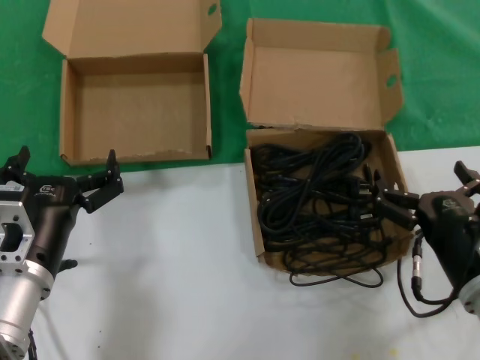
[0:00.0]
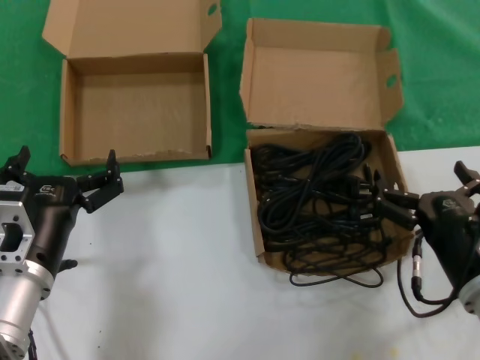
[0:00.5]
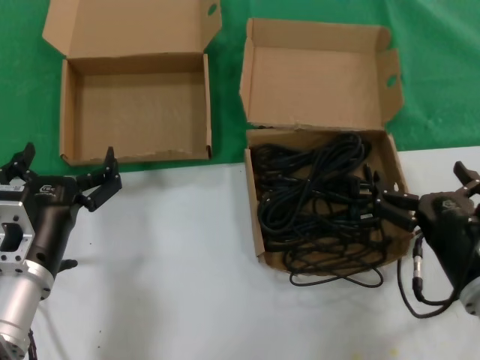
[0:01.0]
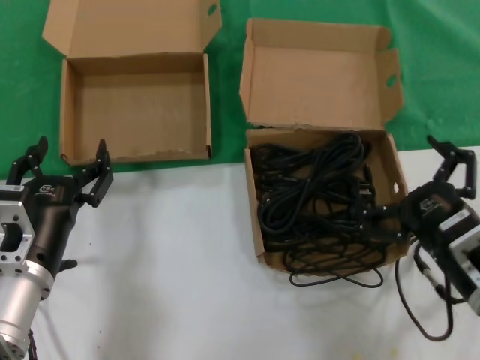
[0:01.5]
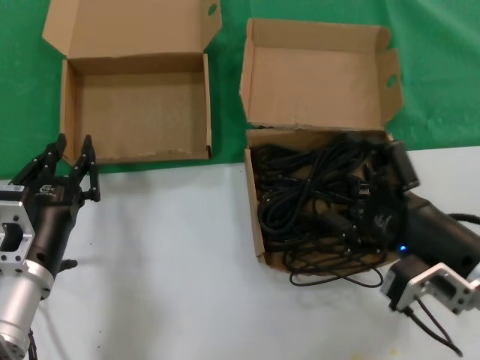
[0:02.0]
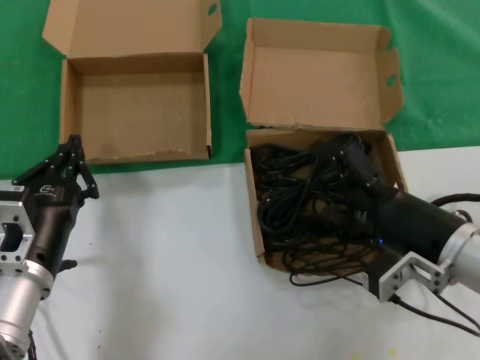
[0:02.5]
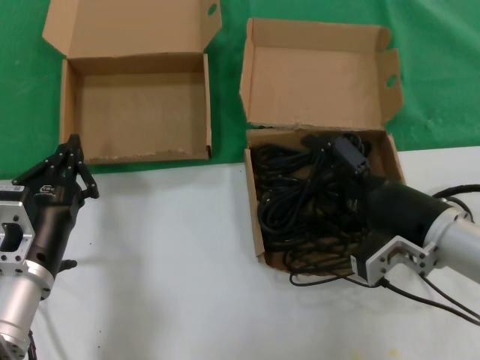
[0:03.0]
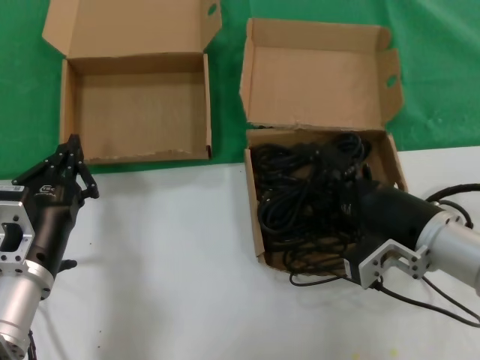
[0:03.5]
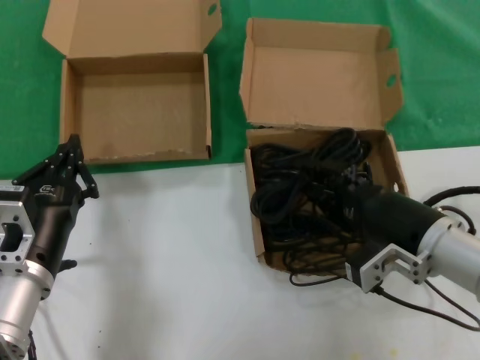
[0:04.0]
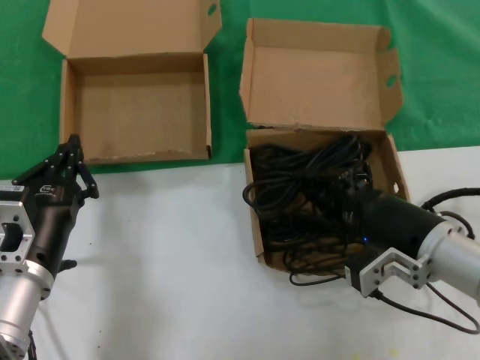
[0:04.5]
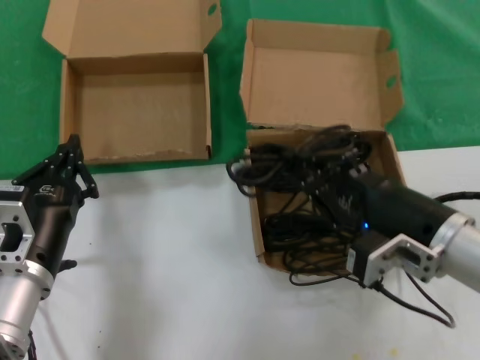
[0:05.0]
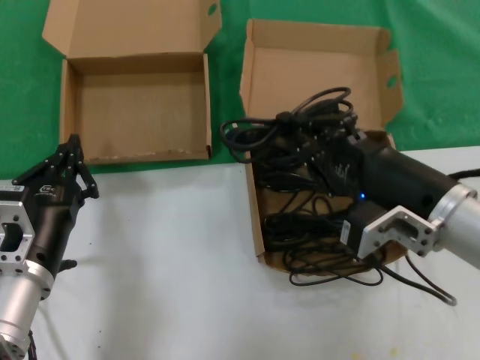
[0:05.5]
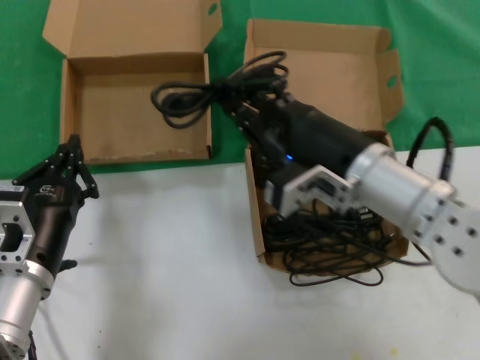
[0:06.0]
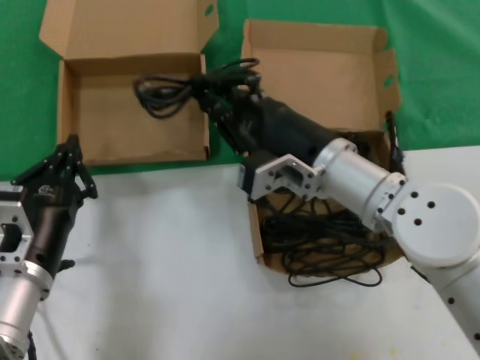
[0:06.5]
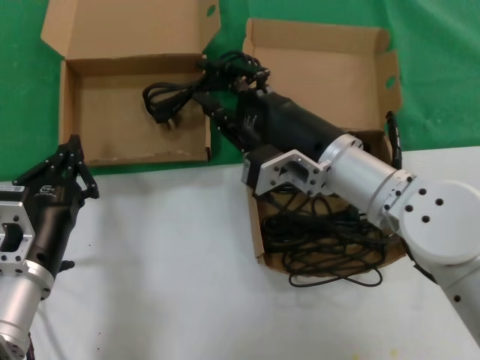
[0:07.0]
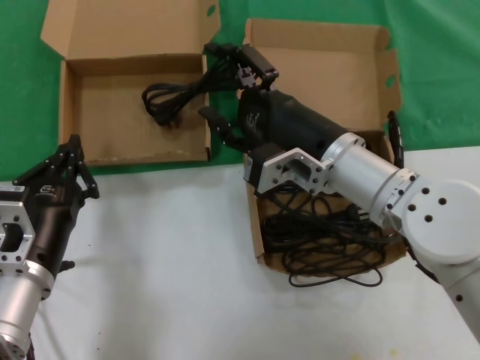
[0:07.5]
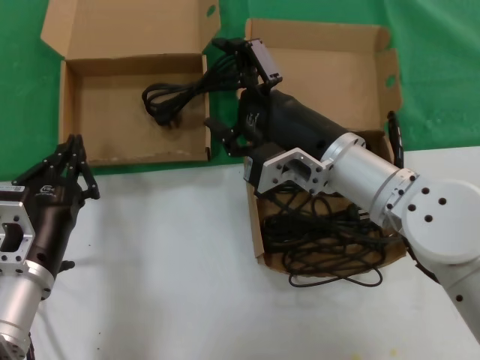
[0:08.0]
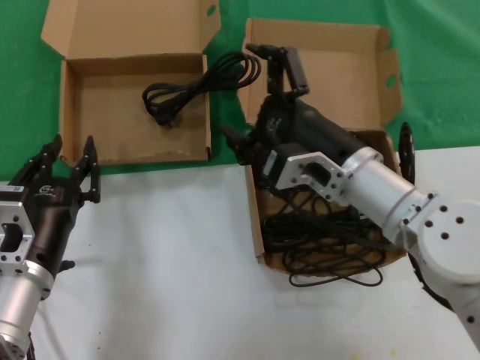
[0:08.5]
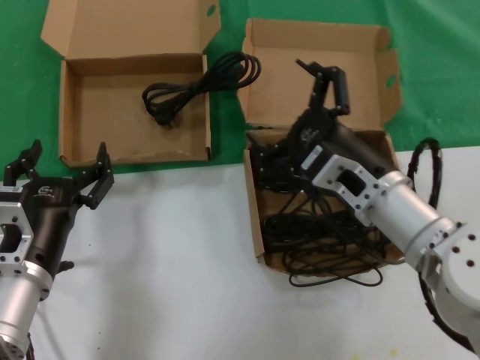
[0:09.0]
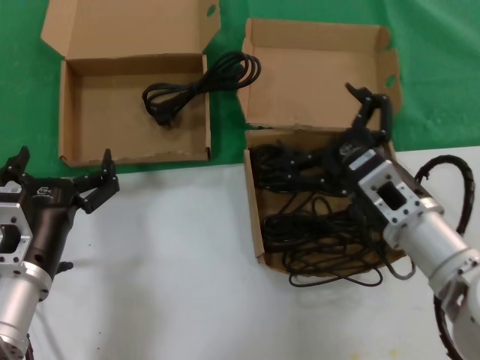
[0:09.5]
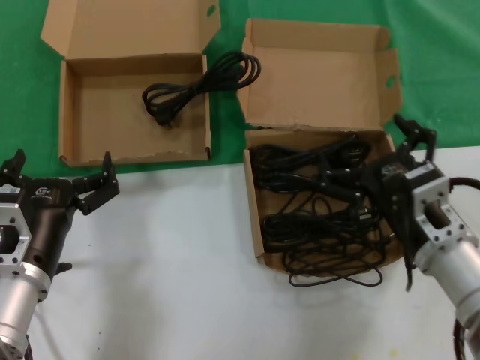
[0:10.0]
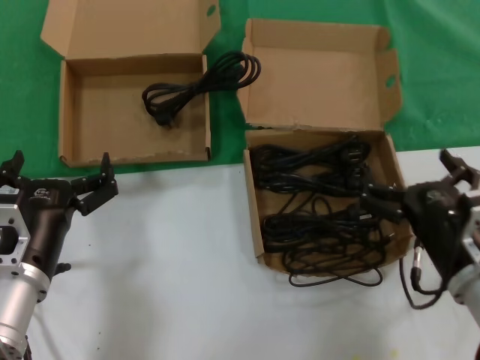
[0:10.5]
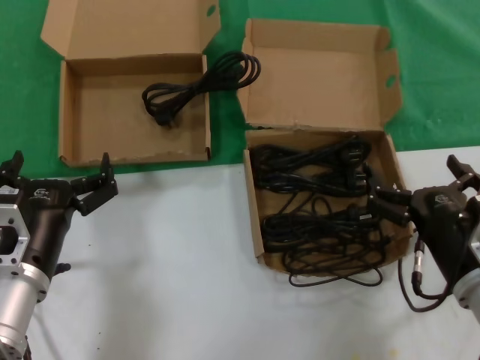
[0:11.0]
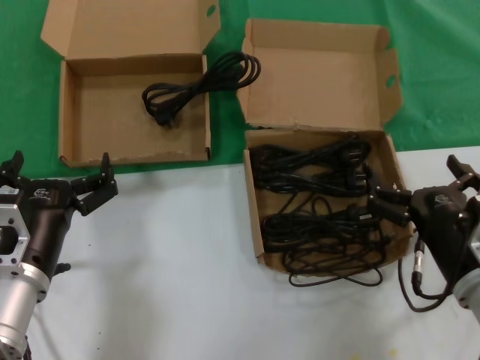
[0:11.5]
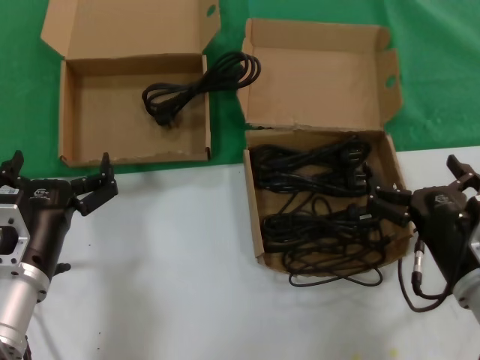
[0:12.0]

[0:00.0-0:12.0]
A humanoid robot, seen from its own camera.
Task of the whole recording: take the parts from the box containing them and put them into an empty box.
Step, 0:00.0 to 0:03.5: Grasp the data cable.
Step, 0:04.0 to 0:06.5: Place the data cable in the another box.
0:02.0 to 0:04.0: The right hand is displaced forward by some 5 cm.
0:04.0 to 0:06.0: The right hand heads to the left and upward, covering roughly 10 cm.
0:06.0 to 0:08.0: The hands move only a little.
0:08.0 to 0:10.0: The right hand shifts approximately 15 cm to the right, downward and backward.
0:10.0 to 0:12.0: The right hand changes place by some 5 cm.

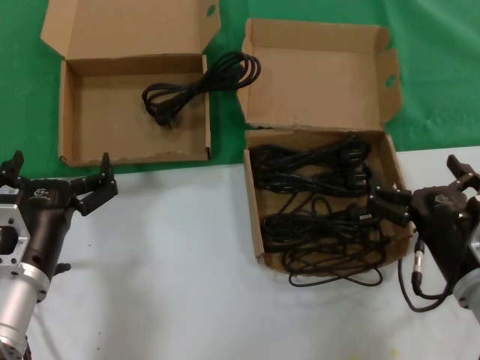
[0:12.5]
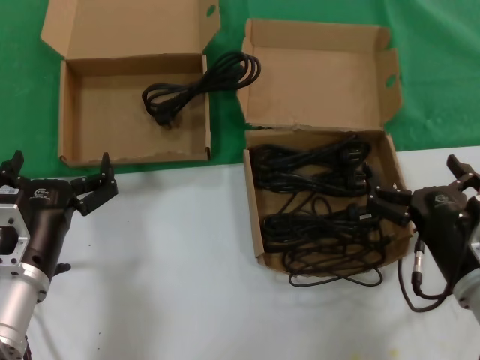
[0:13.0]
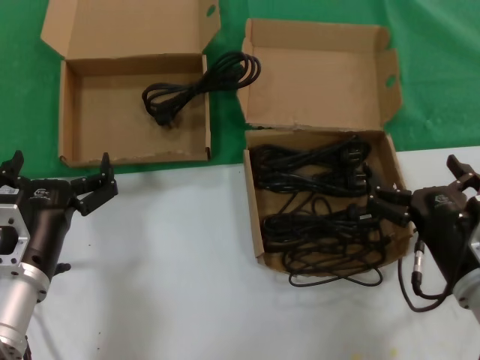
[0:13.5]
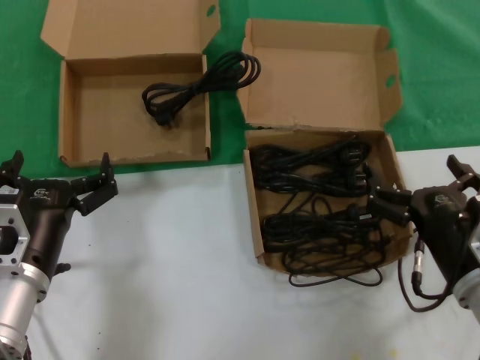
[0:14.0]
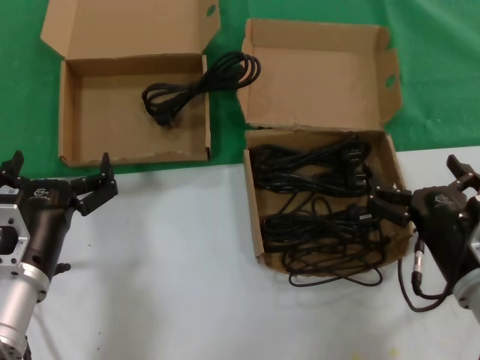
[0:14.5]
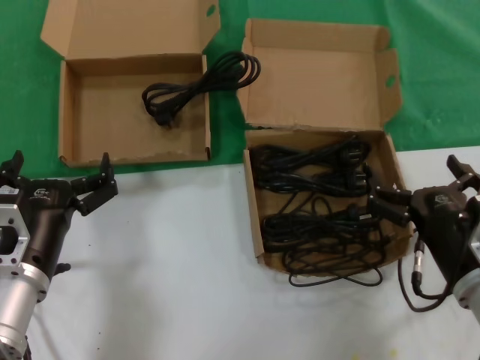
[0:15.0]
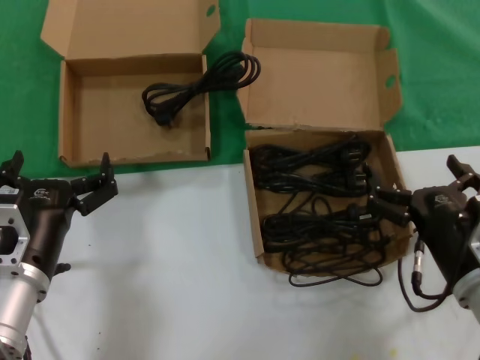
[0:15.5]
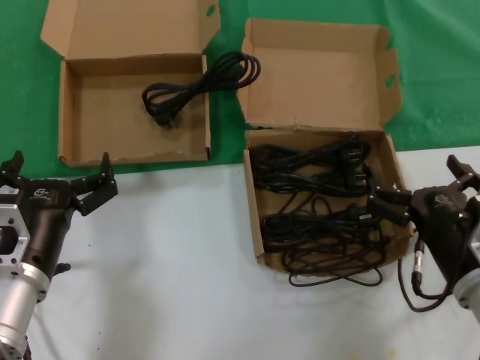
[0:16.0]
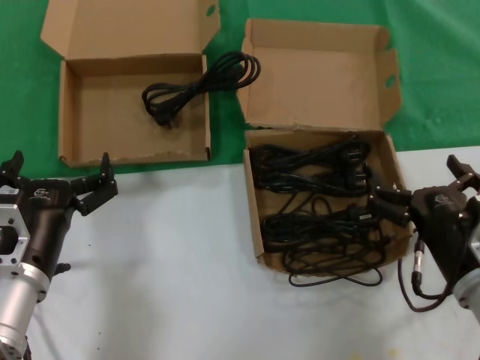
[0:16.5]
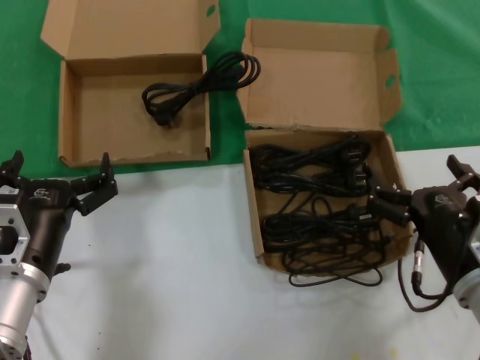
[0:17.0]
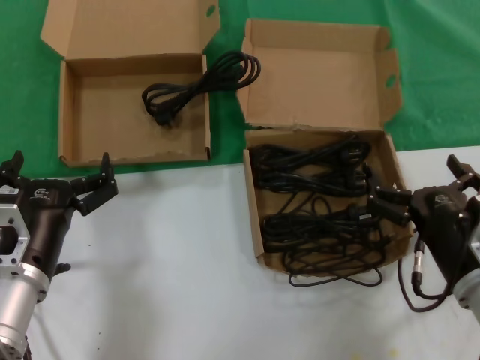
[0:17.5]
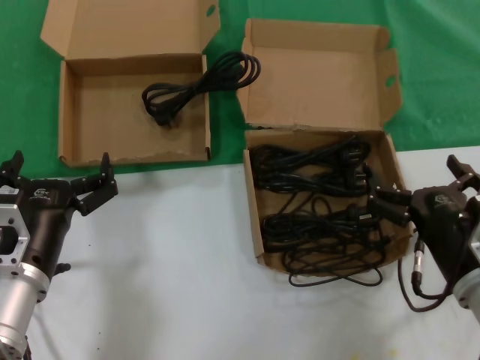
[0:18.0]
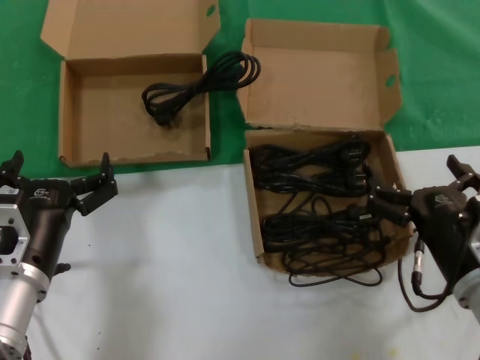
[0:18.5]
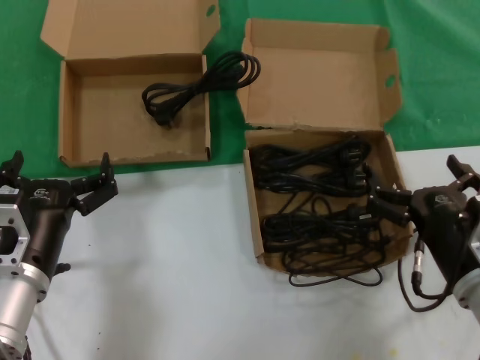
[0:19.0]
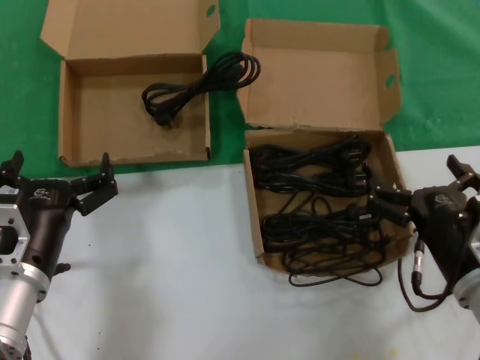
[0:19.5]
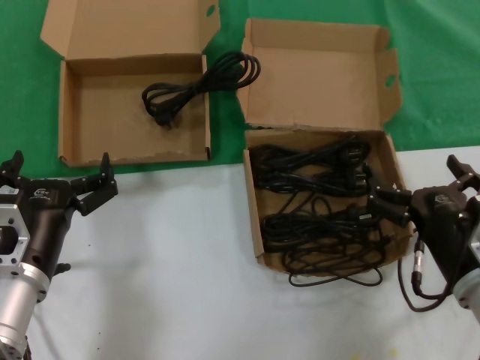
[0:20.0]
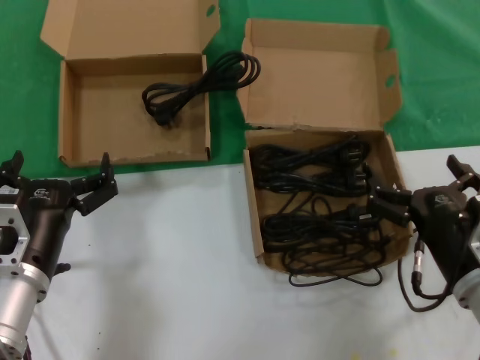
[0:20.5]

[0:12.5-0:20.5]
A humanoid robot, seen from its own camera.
Task of the whole recording: take the parts from the box containing them and put them into an empty box.
0:12.5 to 0:20.5: Neither hand changes place.

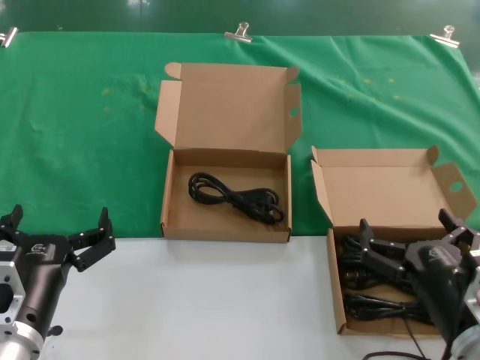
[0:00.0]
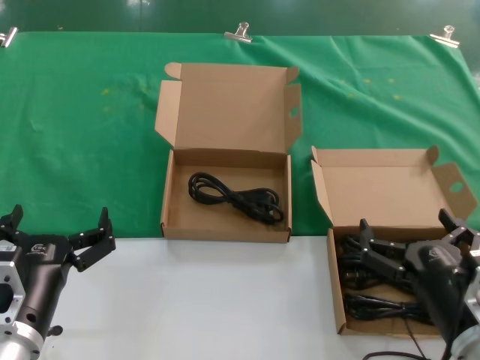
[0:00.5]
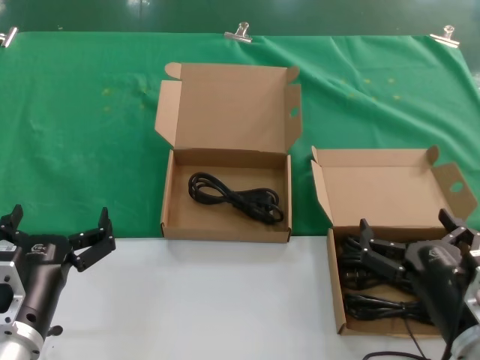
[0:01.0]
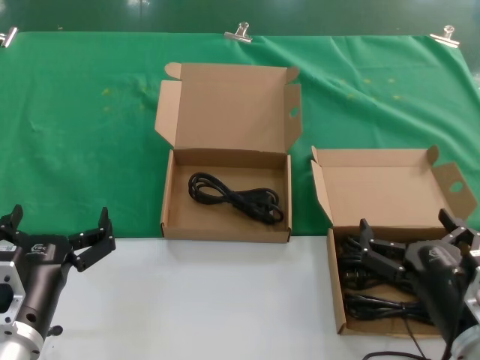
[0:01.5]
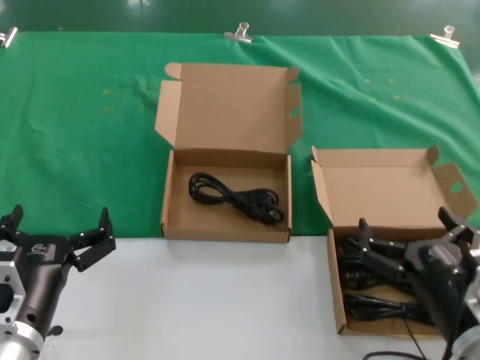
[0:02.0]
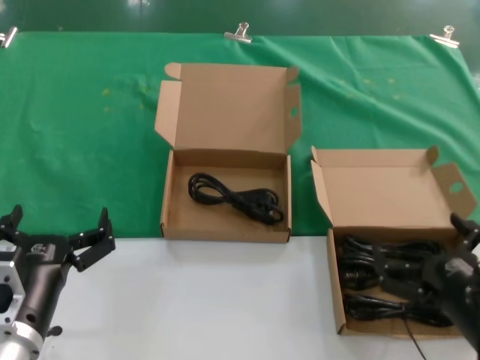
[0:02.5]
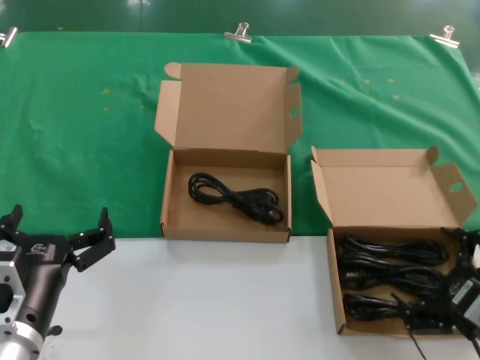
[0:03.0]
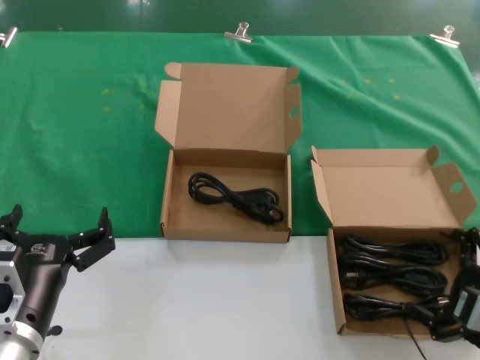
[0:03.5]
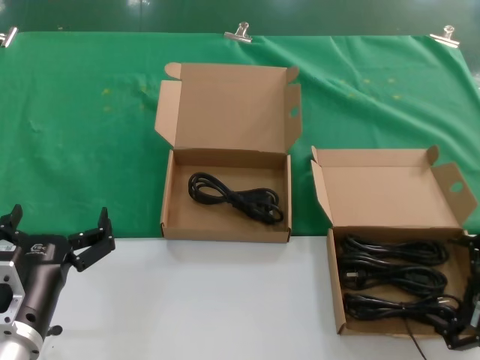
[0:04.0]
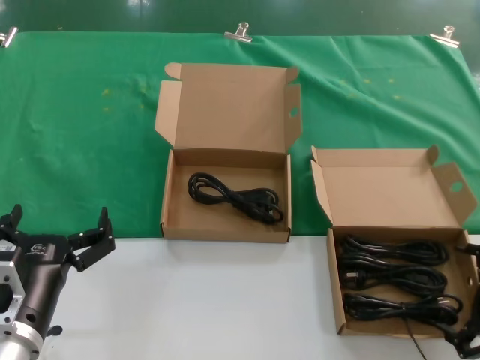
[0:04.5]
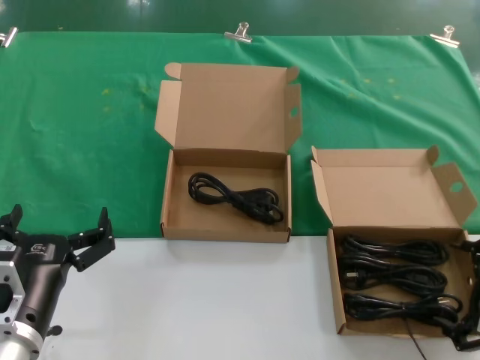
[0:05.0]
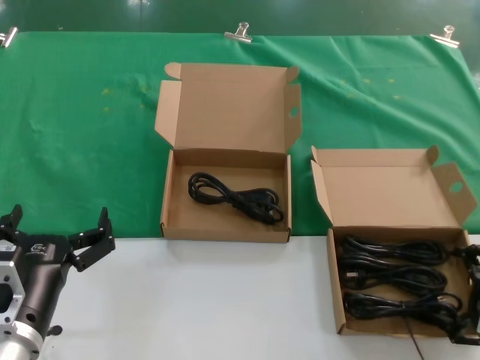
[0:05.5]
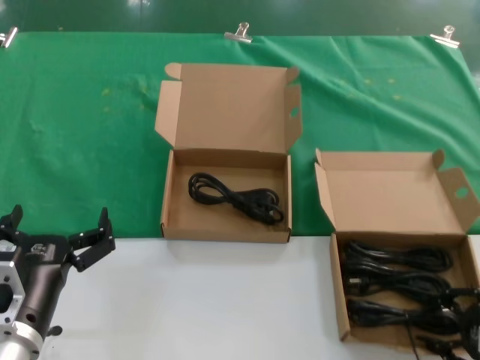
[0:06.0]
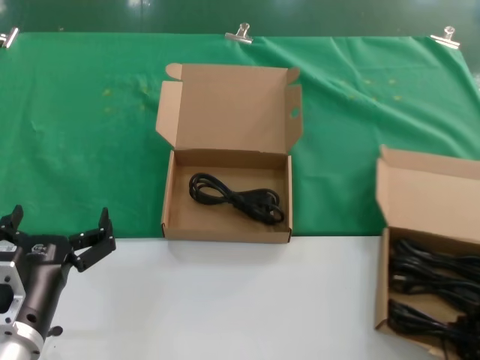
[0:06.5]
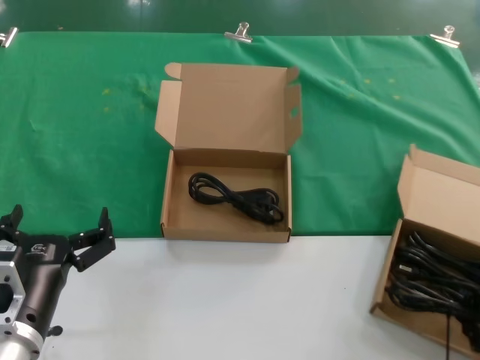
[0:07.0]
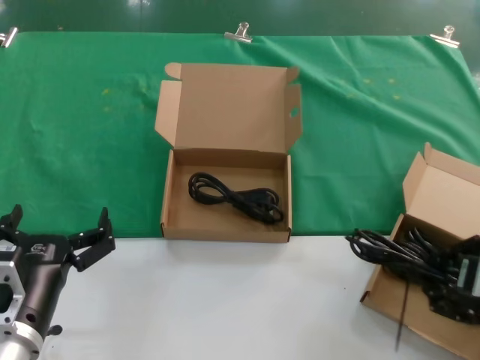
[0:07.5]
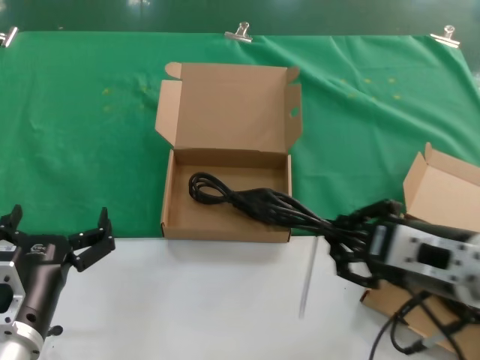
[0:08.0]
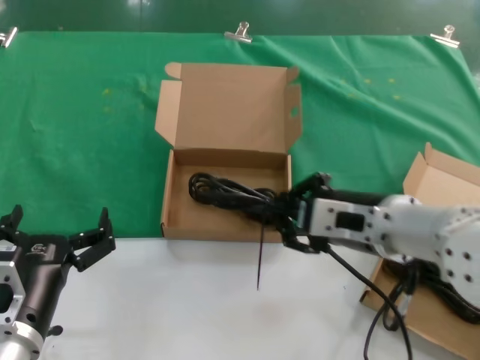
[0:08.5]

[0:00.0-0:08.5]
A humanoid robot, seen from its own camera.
Task of the whole recording: take the parts from the box containing them and put them into an empty box.
Step, 0:00.0 to 0:06.0: Grasp the data cable.
0:00.0 to 0:02.0: Neither hand changes place.
0:02.0 to 0:04.0: The right hand goes about 10 cm to the right.
0:06.5 to 0:08.5: The right hand heads to the left and upward, covering some 25 cm.
